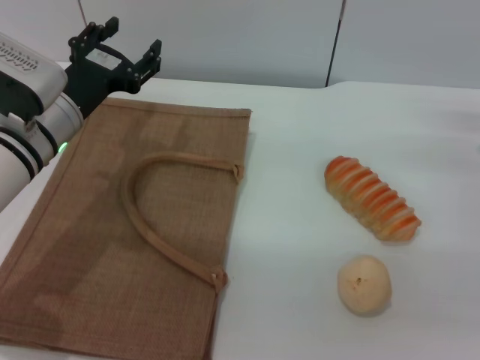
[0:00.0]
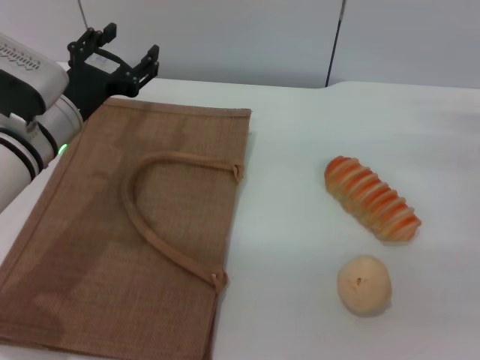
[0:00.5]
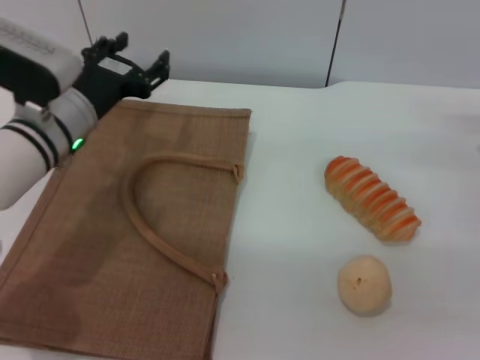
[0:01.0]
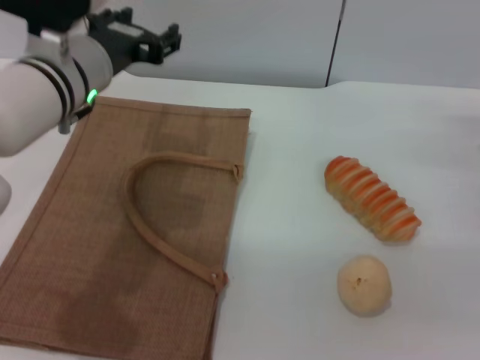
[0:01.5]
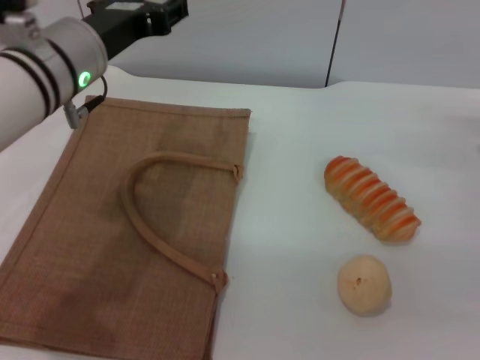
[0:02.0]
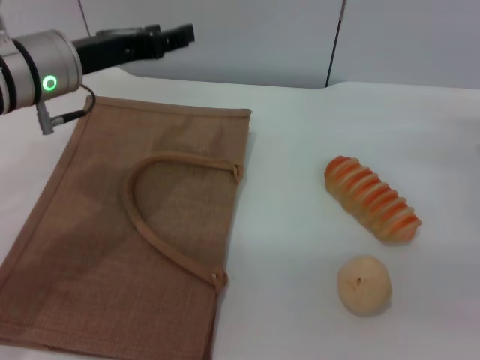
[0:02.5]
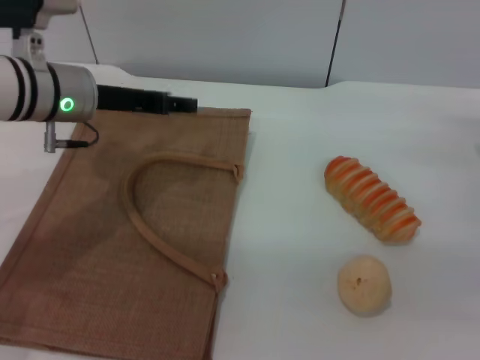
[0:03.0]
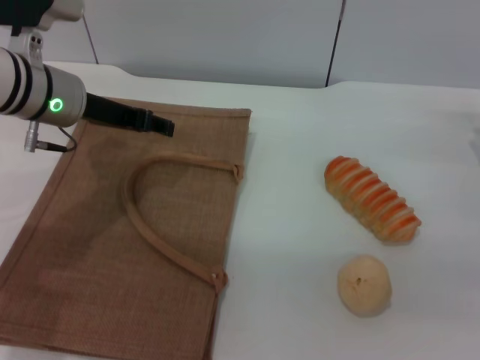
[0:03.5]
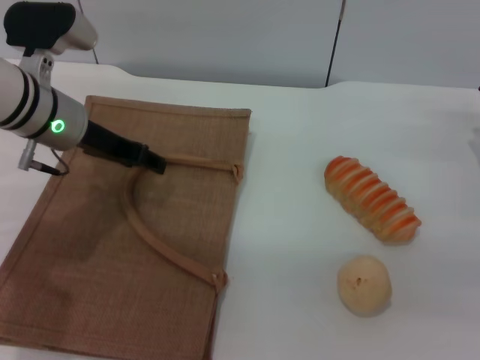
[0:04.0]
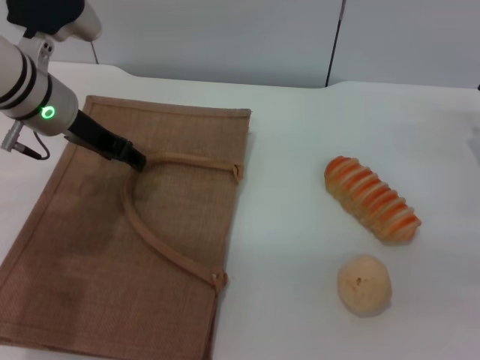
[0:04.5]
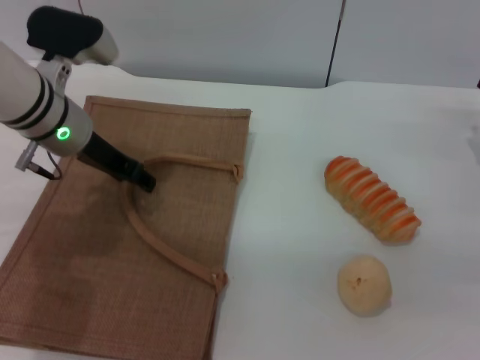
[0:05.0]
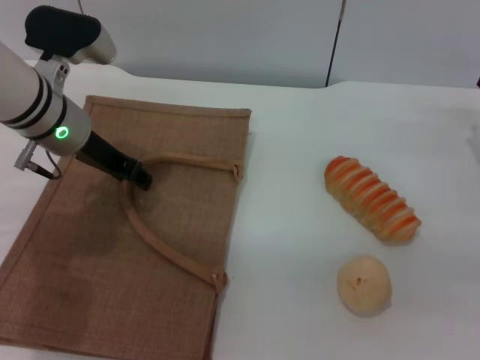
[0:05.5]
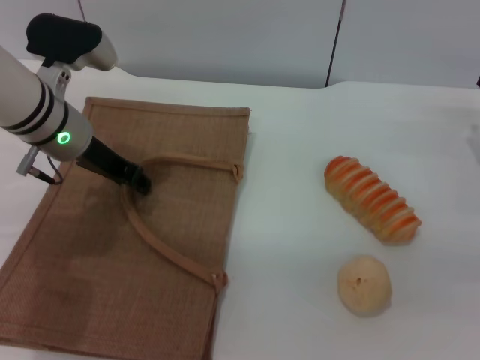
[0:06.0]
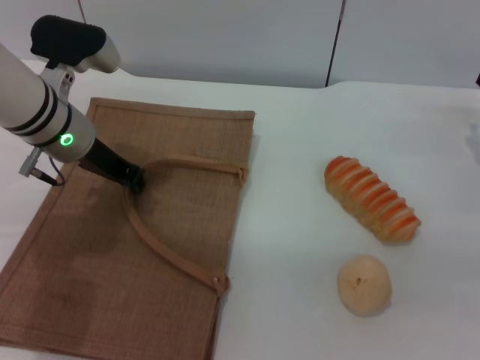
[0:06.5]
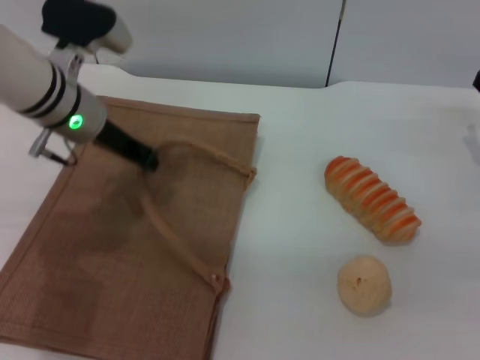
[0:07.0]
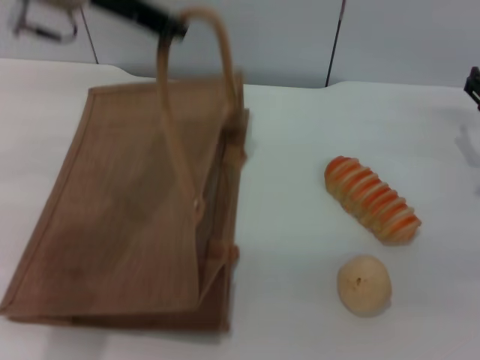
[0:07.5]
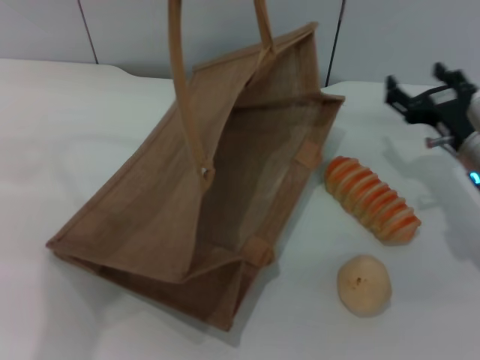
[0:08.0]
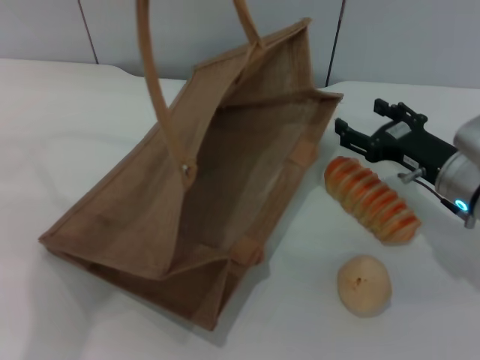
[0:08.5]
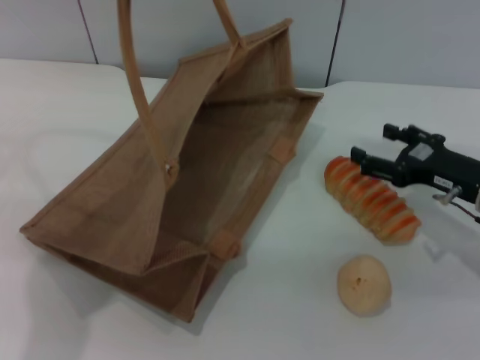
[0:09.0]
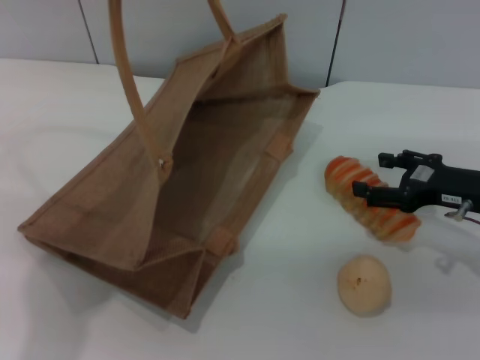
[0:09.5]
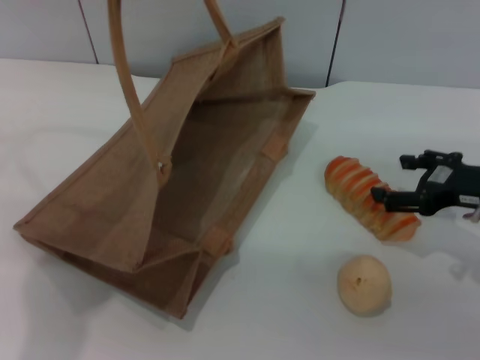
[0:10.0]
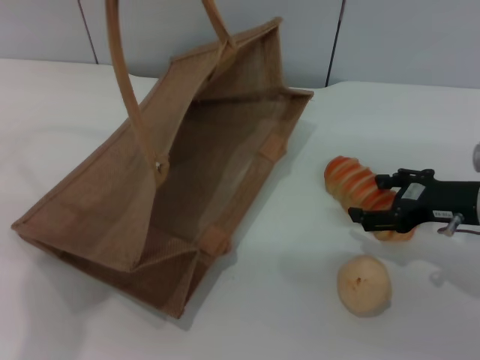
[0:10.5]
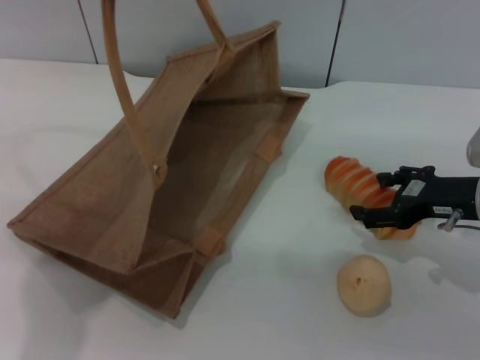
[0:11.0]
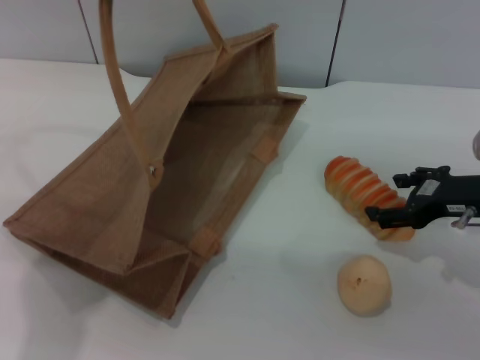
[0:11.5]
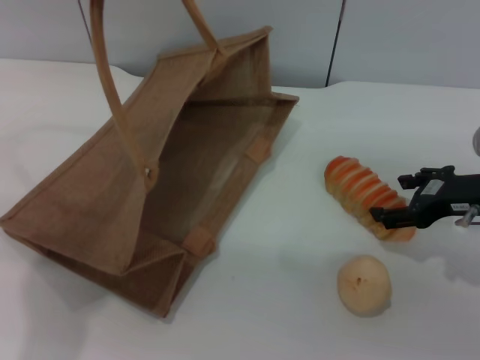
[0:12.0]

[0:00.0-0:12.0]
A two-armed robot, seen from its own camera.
Task of the whole recording: pick up the bread and egg yolk pastry from the table and place it in the brown handbag.
Step, 0:00.0 to 0:07.5: Lift the woven bag with the left gripper to open it.
0:00.0 to 0:02.0: The left gripper shifts roughly 10 cm upward.
0:02.0 to 0:04.0: The left gripper moves to the left and downward, about 5 cm.
0:04.0 to 0:06.0: The grippers stay close to where they were, moving slightly.
0:06.0 to 0:08.0: The left gripper travels upward by approximately 20 cm, and closes; the right gripper is displaced to the left by about 5 cm.
0:08.0 to 0:10.0: The right gripper moves approximately 5 cm.
0:10.0 to 0:12.0: The grippers stay close to where they were, moving slightly.

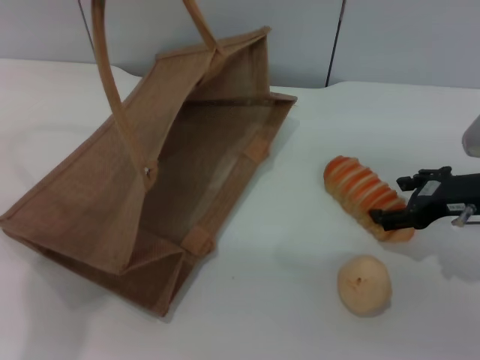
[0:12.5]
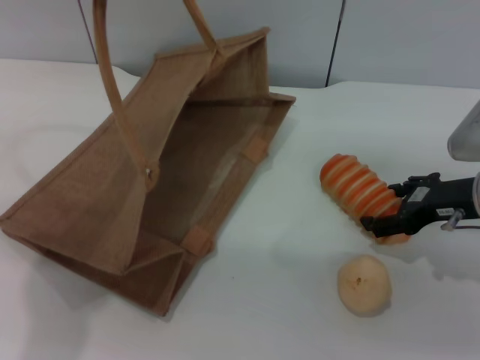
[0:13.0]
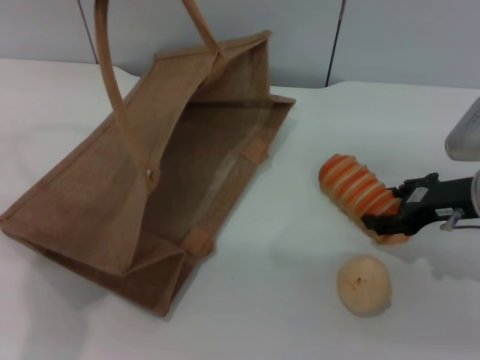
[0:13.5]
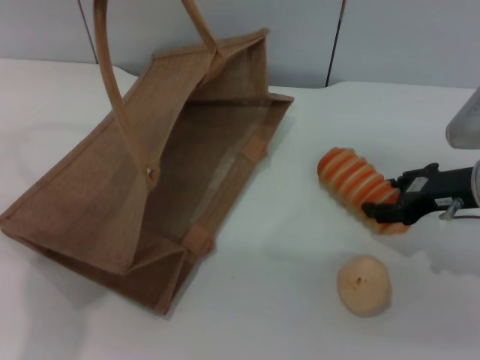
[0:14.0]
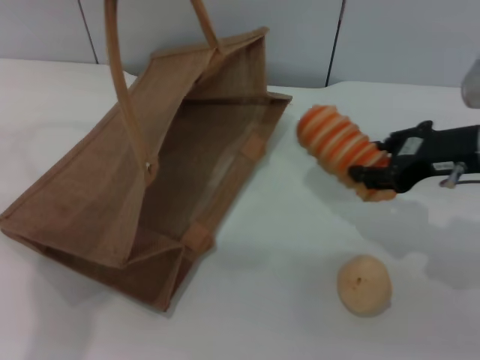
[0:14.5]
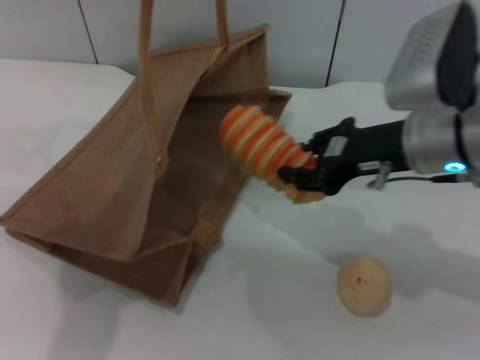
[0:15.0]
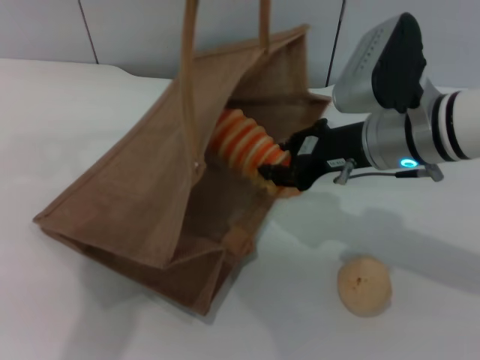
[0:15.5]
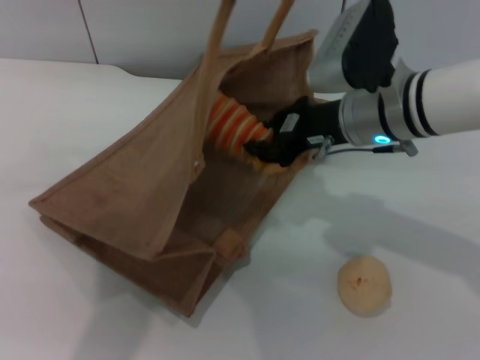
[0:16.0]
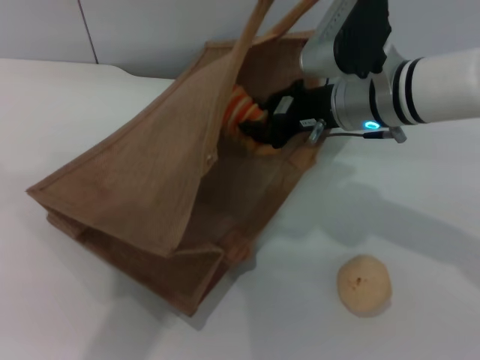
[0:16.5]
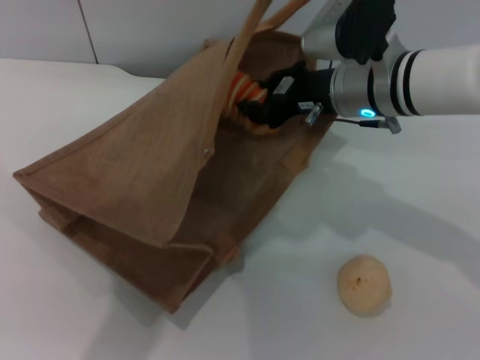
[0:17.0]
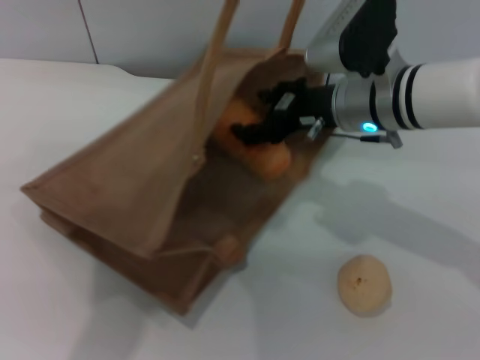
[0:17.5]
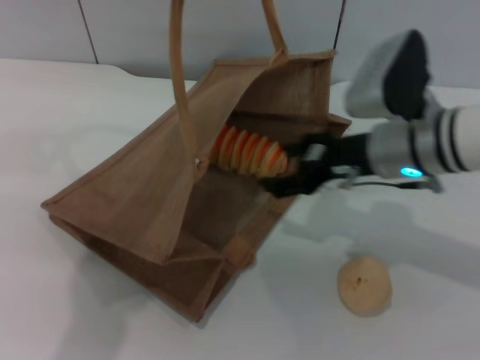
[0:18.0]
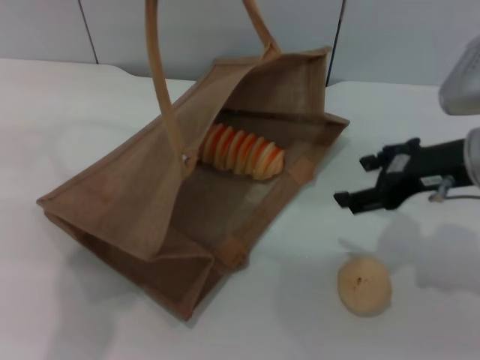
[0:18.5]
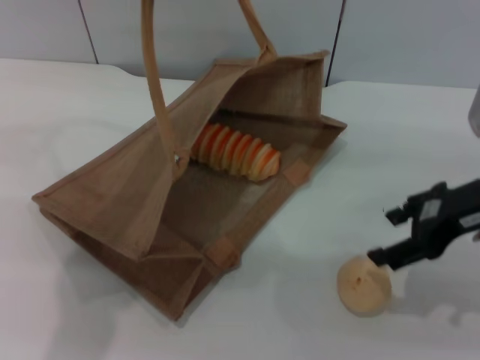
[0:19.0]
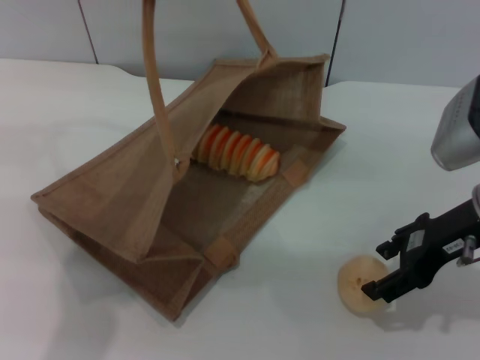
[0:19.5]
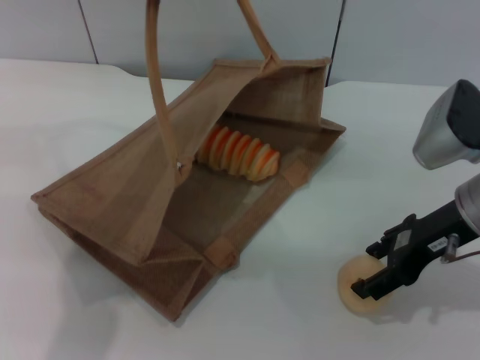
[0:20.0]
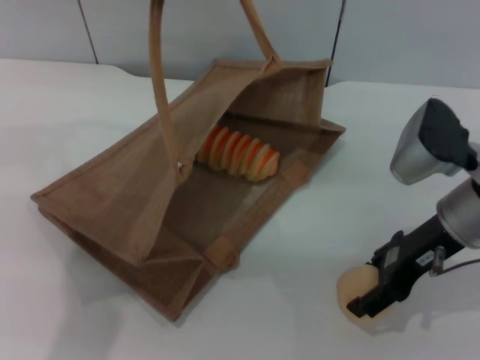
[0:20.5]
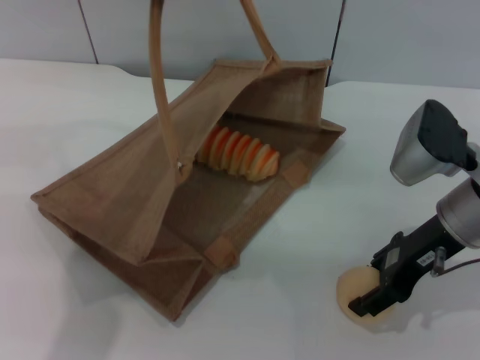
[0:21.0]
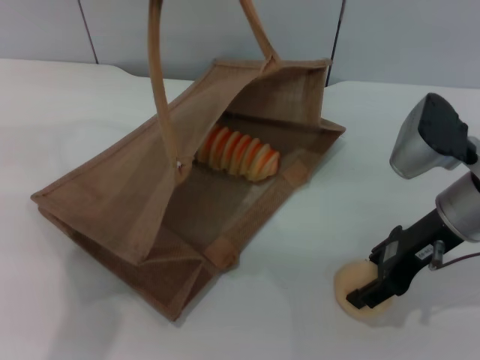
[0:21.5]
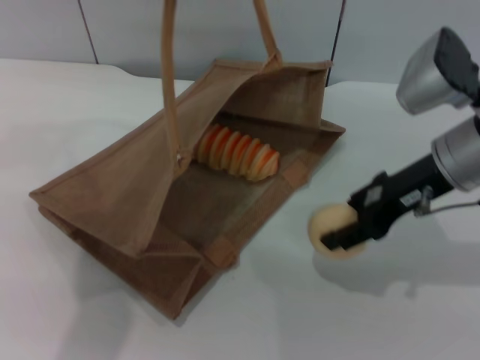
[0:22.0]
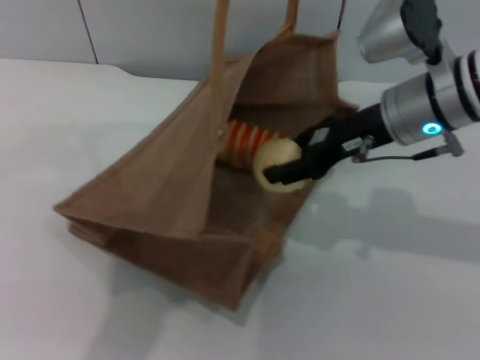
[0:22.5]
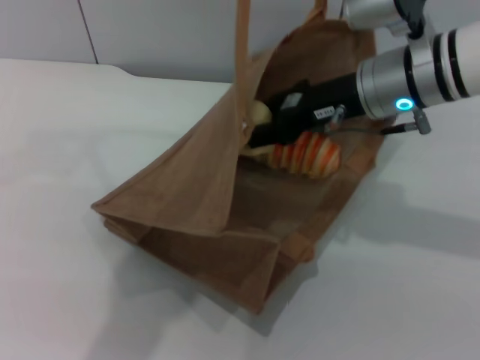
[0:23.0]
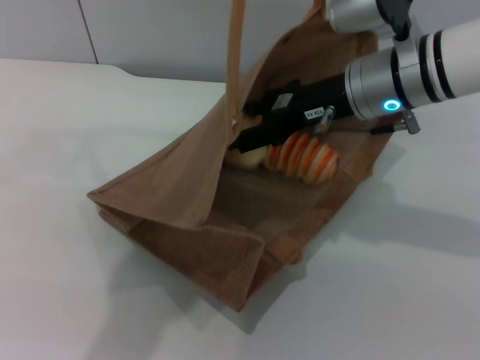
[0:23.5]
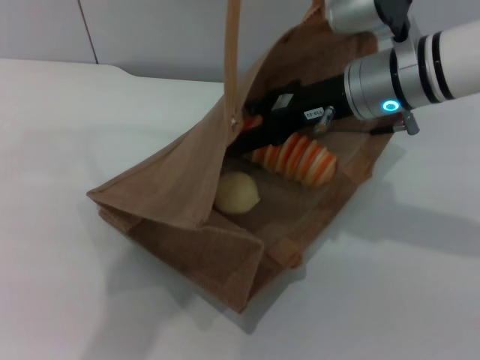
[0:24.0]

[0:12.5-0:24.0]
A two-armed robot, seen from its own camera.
Task of the whole recording: pick up the bread and egg yolk pastry from the table and place it in the brown handbag.
Step, 0:14.5 to 0:18.0: Place the bread into the woven bag with the right gripper.
Step, 0:18.5 to 0:22.0: Pick up the egg yolk pastry with the right gripper.
0:12.5 to 0:14.5: The right gripper goes about 5 cm upward, and closes up.
0:14.5 to 0:16.5: The right gripper heads to the left and forward, covering approximately 15 cm, and closes. Meanwhile the left gripper heads to the right, covering approximately 10 cm.
0:16.5 to 0:18.5: The left gripper travels to the left by about 10 cm, while the right gripper goes approximately 15 cm to the right and backward, and opens its fingers.
0:20.0 to 0:22.0: The right gripper closes.
0:22.0 to 0:24.0: The left gripper changes place by about 5 cm, while the right gripper goes about 5 cm to the left, and opens its fingers.

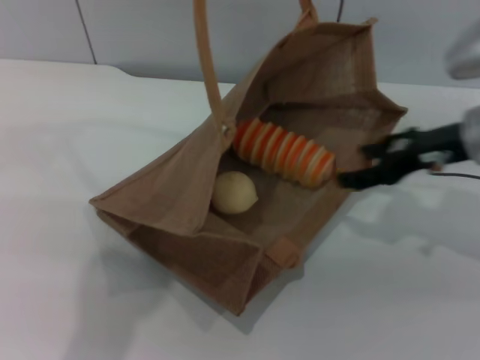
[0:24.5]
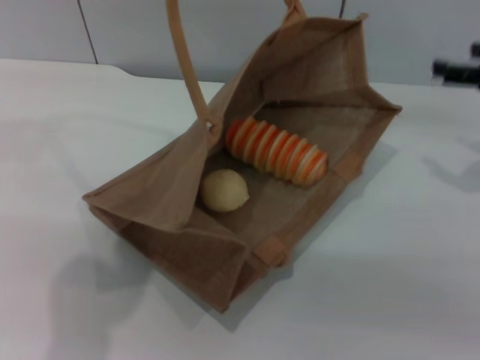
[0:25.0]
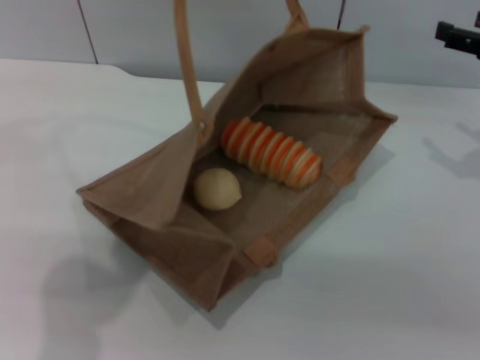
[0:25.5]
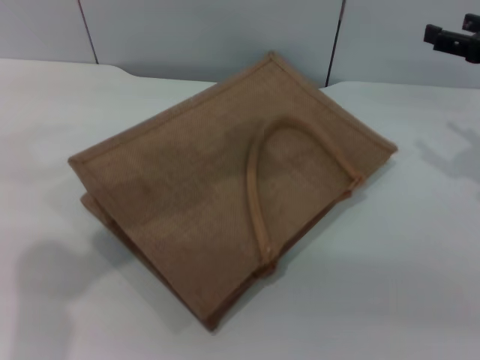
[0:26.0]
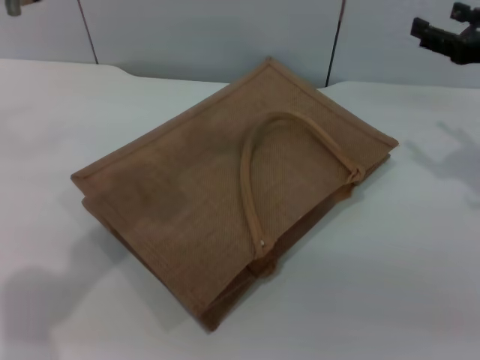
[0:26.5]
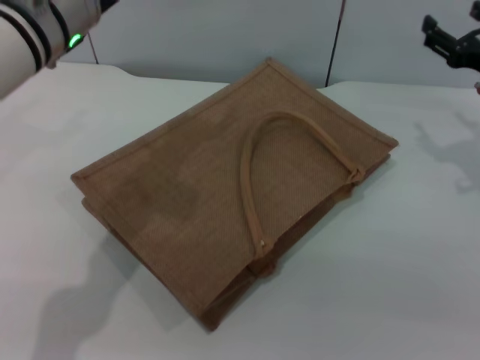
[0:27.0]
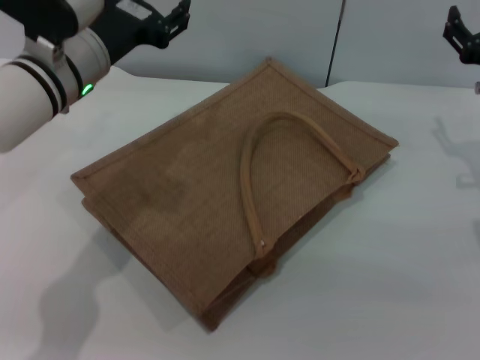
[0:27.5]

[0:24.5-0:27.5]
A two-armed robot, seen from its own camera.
Task of the whole recording: pick up the bread and egg yolk pastry from the table and place it in the brown handbag.
Step, 0:25.0 to 0:26.0: Lower the woven bag with the left gripper to close it.
0:24.5 to 0:26.0: The right gripper travels to the right by about 10 cm; the left gripper ends up some 5 cm from where it was, and opens its fingers.
0:26.0 to 0:27.5: The left gripper is displaced downward by roughly 15 cm. Meanwhile the right gripper travels downward by approximately 10 cm.
